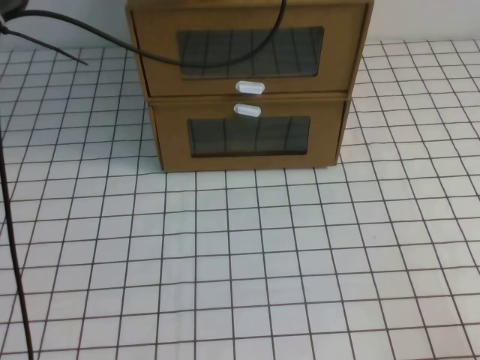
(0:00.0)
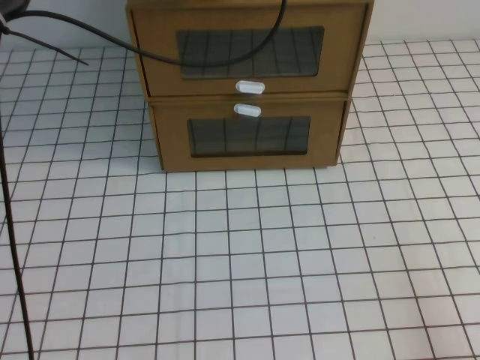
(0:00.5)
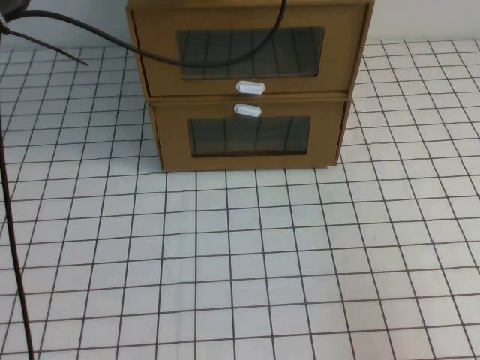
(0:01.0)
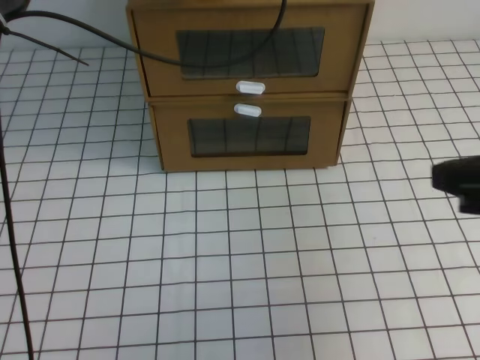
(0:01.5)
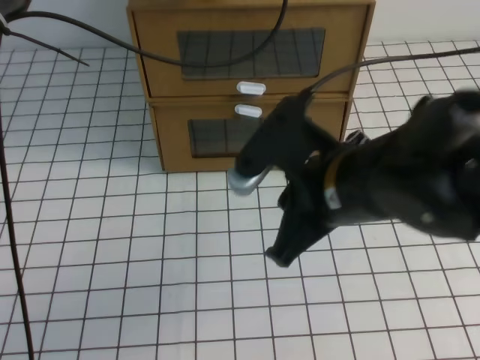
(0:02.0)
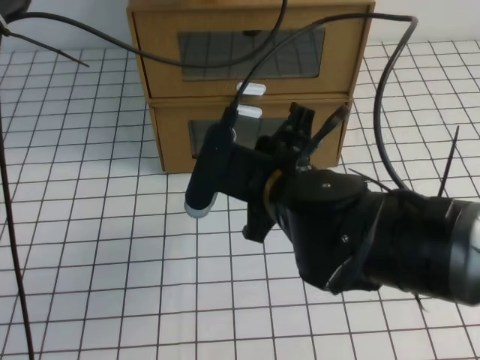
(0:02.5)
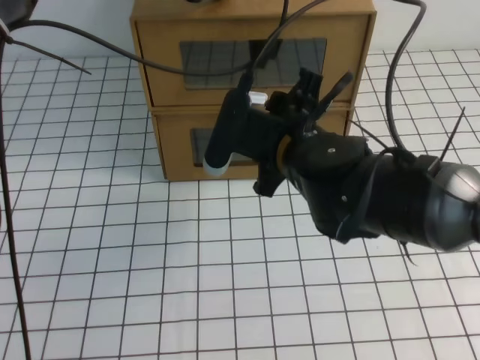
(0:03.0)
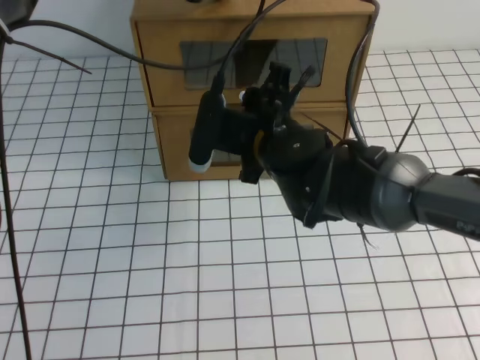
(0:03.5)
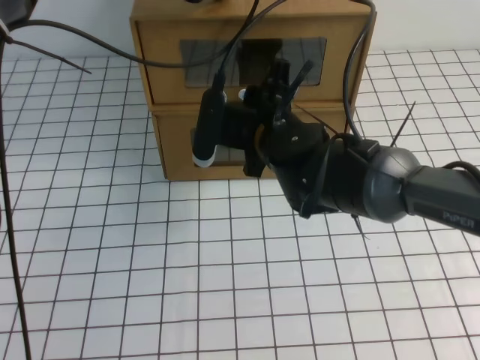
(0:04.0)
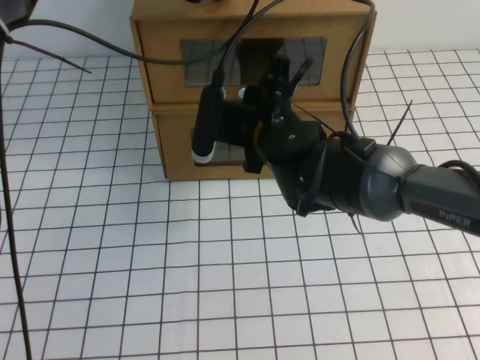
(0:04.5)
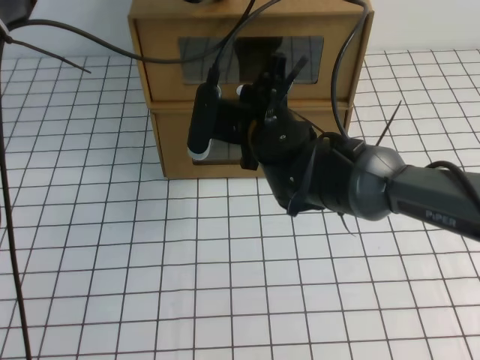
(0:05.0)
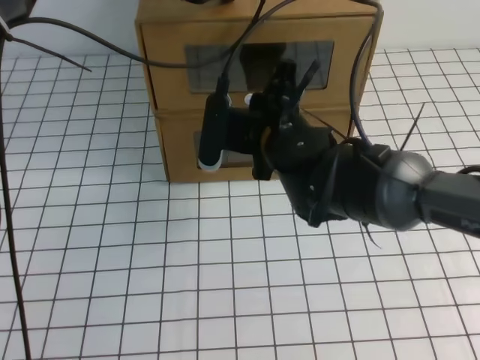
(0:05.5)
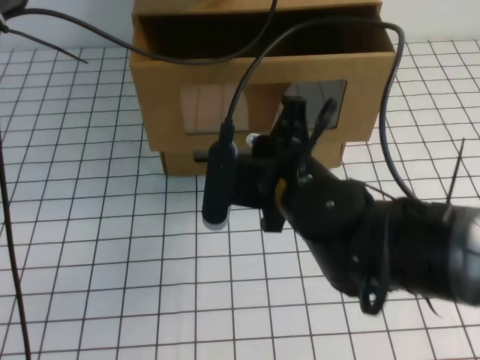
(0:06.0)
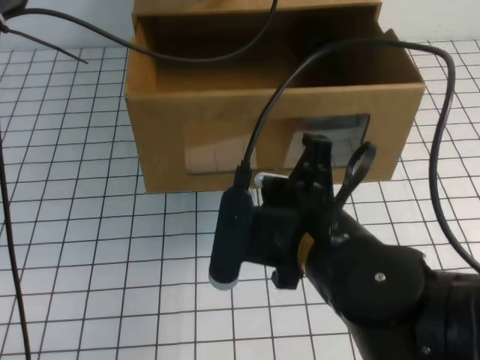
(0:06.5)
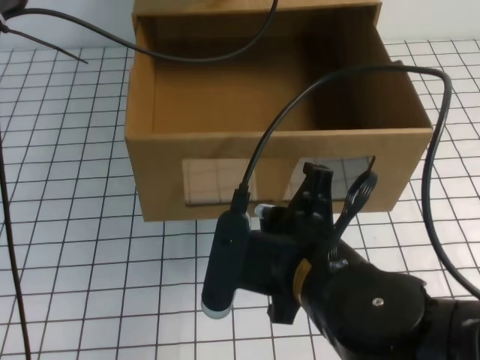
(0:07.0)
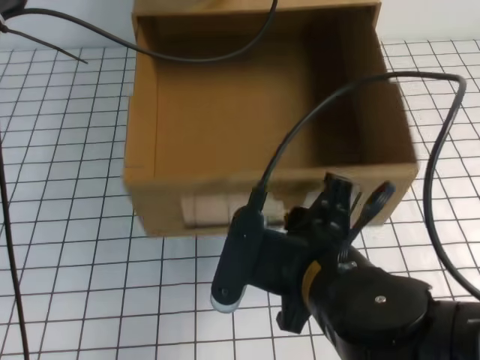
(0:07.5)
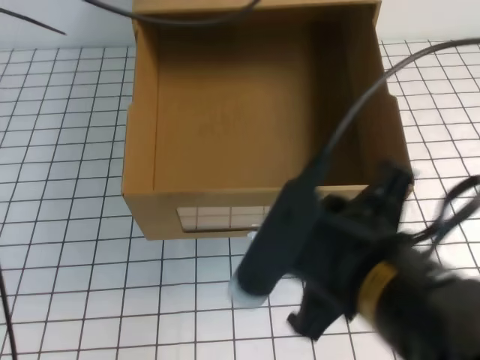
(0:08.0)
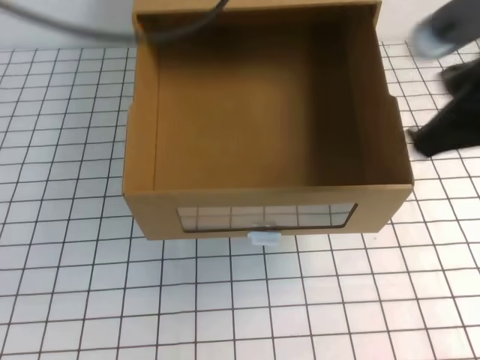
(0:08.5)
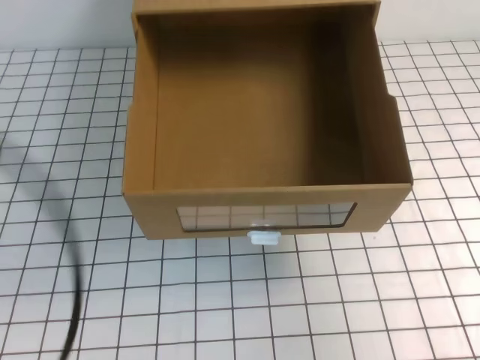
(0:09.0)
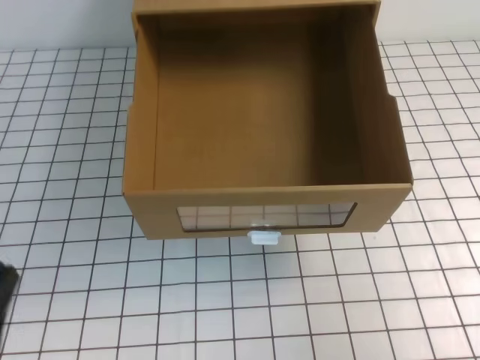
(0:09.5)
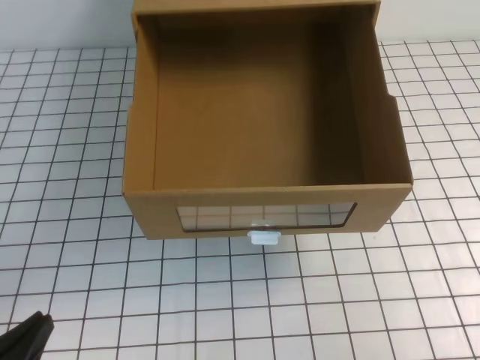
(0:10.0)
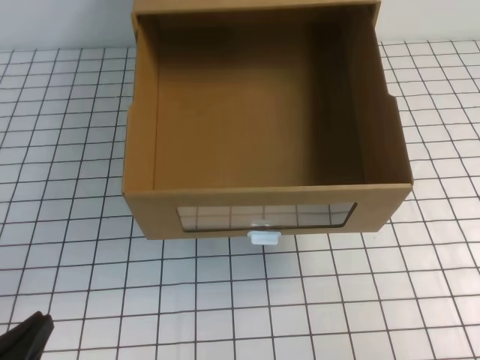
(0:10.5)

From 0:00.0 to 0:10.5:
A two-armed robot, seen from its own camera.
Task of the whole recording: open the shoebox on the white tablecloth.
From 0:00.0 to 0:02.0: The right gripper travels to the left, forward and upward by some 30 cm.
From 0:02.0 to 0:04.0: The right gripper goes roughly 15 cm forward, to the left and downward, and opens up.
From 0:04.0 to 0:06.5: The right gripper goes some 15 cm backward, and closes up.
From 0:06.5 to 0:08.5: The right gripper goes roughly 20 cm to the right and upward, and opens, then closes again. Meanwhile the left gripper heads backward and upward, covering roughly 20 cm.
From 0:08.5 to 0:10.5: The left gripper heads downward and backward, covering some 40 cm. Meanwhile the right gripper travels downward, to the right and backward by approximately 15 cm.
